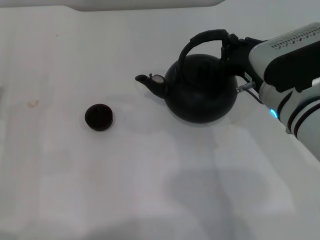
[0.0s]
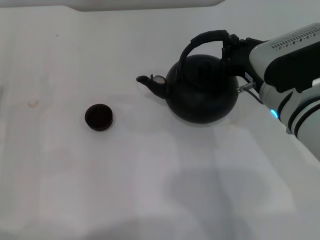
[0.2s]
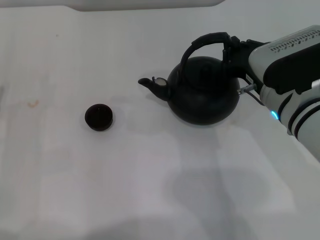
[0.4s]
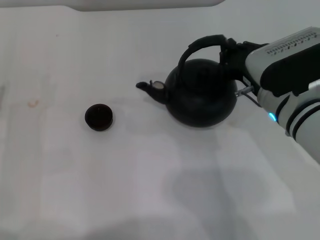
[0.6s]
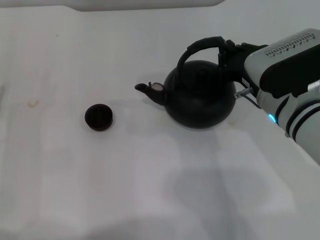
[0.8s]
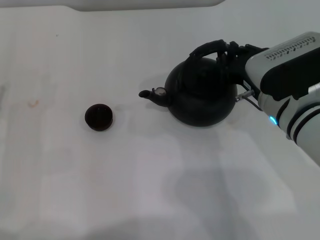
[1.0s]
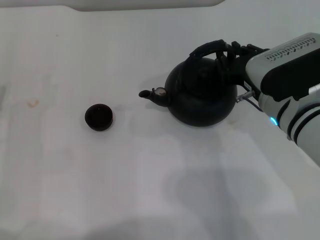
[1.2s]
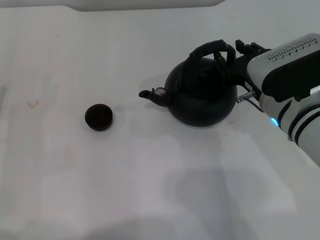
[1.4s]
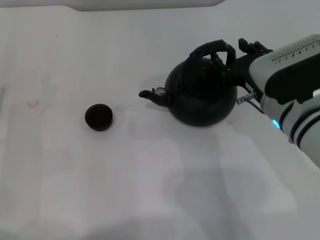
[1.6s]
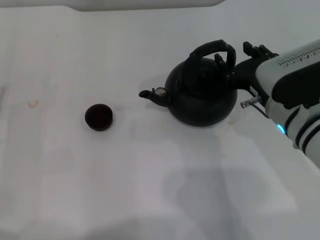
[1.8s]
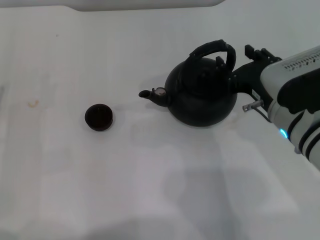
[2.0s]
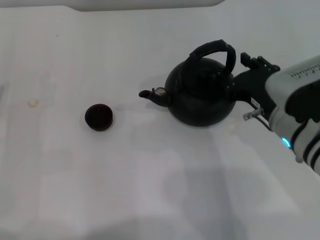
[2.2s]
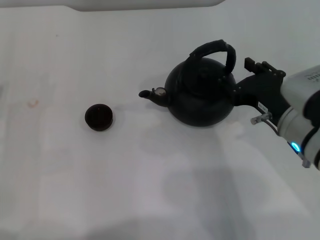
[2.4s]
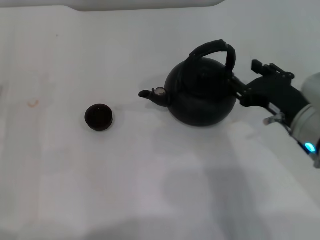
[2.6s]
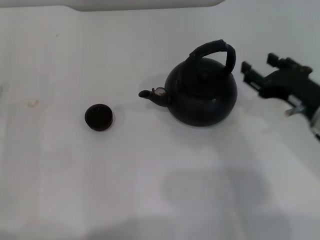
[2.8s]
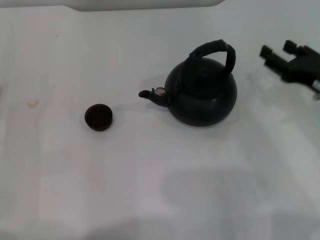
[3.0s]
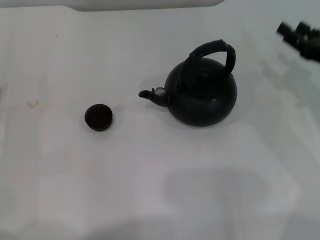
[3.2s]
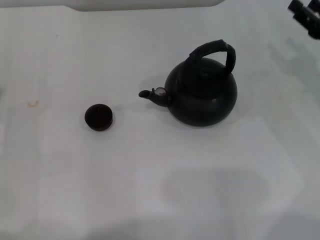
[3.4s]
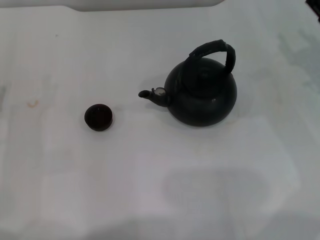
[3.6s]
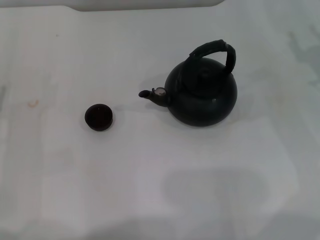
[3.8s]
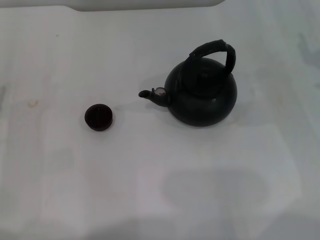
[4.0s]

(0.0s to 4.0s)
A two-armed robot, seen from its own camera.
Task of the whole recording: Grasp the handle of the teapot with one hand and pour tea into the teacup.
Step, 0.0s - 2.0s: Put down the teapot with the right gripper.
0.0s - 1.4s: The two grippers keep their place.
1.4s - 2.6s: The right gripper ends up roughly 5 cm from where it was, and opens its fingers.
2.6s - 4.0s: The right gripper is displaced to the right and forward by some 15 cm.
